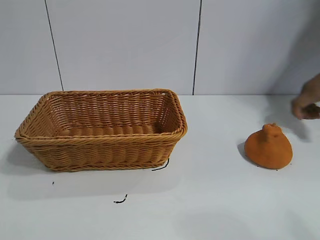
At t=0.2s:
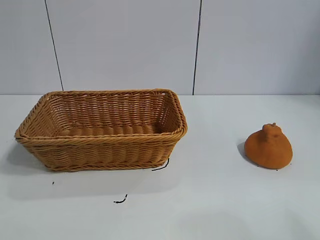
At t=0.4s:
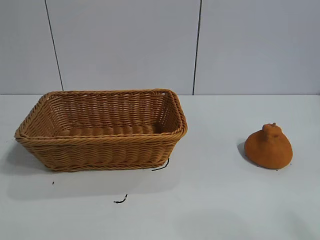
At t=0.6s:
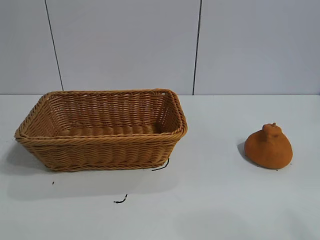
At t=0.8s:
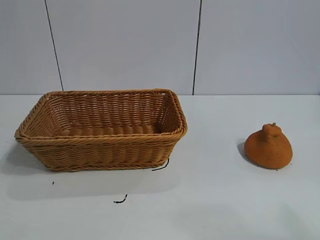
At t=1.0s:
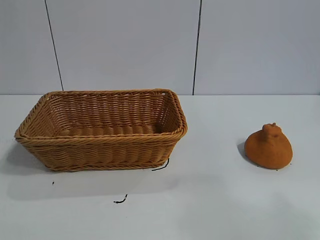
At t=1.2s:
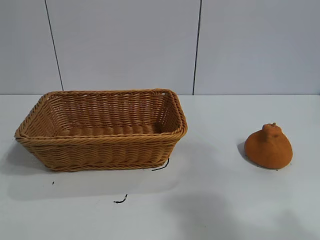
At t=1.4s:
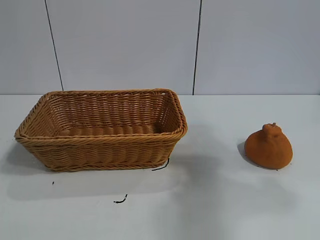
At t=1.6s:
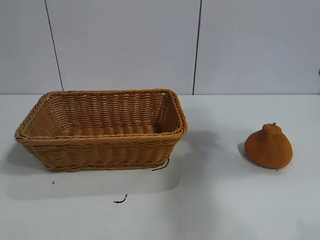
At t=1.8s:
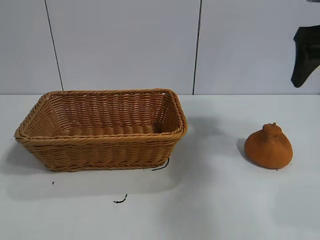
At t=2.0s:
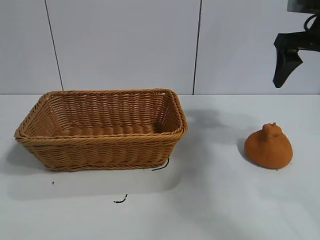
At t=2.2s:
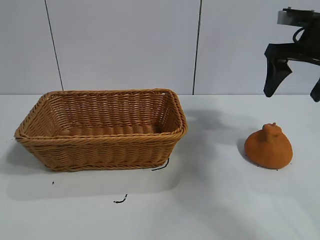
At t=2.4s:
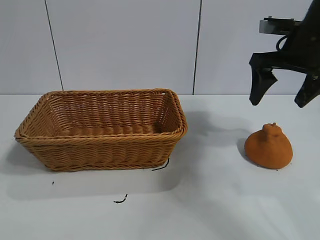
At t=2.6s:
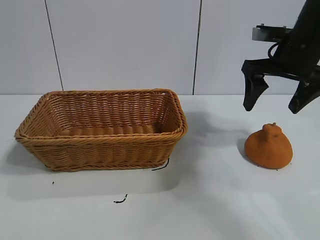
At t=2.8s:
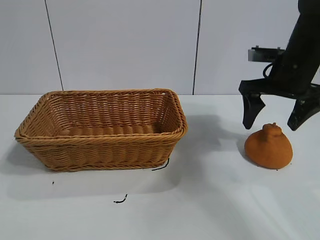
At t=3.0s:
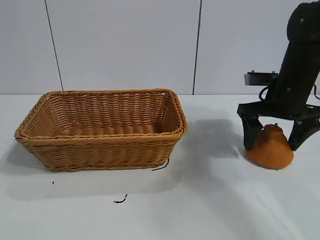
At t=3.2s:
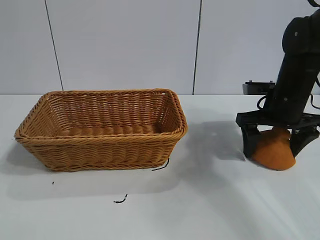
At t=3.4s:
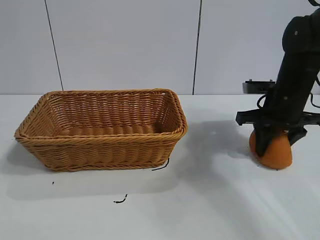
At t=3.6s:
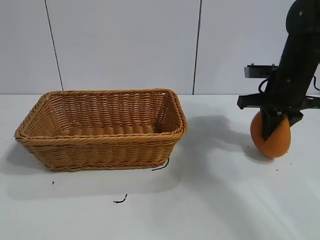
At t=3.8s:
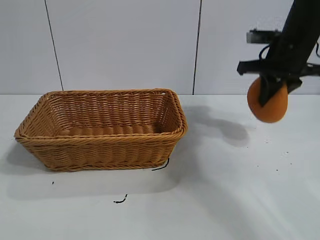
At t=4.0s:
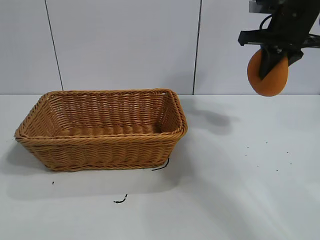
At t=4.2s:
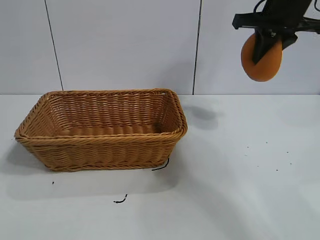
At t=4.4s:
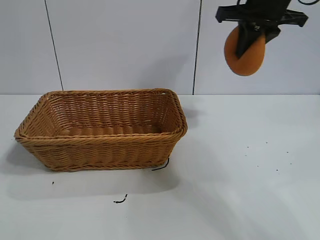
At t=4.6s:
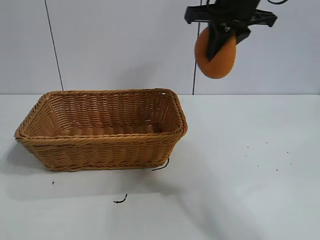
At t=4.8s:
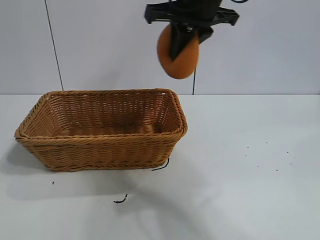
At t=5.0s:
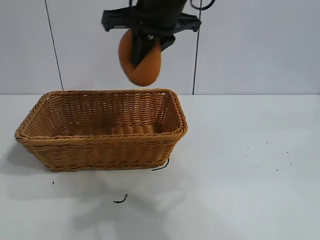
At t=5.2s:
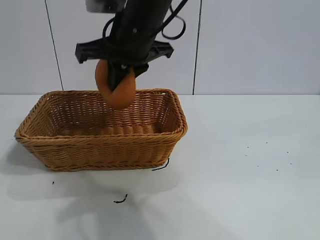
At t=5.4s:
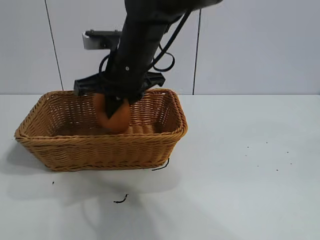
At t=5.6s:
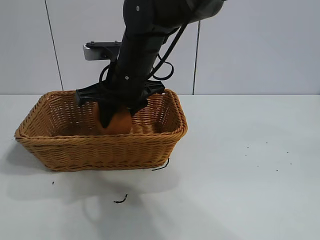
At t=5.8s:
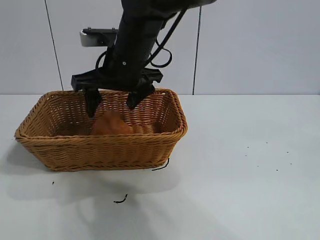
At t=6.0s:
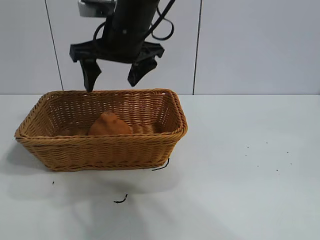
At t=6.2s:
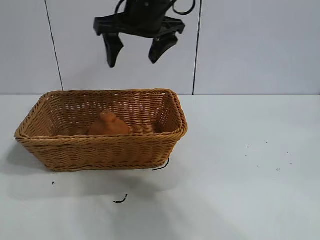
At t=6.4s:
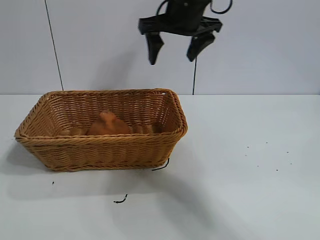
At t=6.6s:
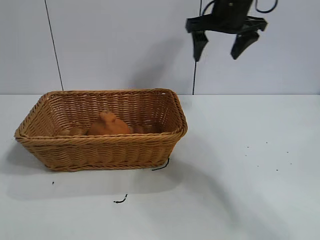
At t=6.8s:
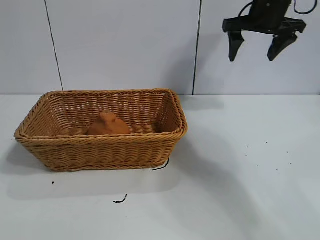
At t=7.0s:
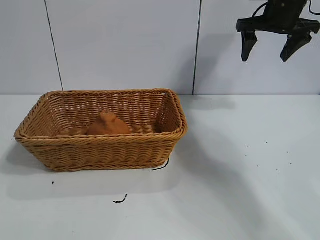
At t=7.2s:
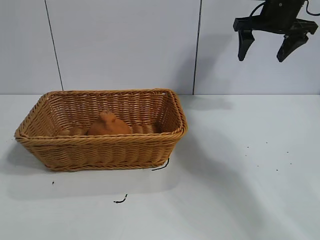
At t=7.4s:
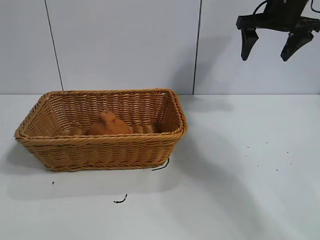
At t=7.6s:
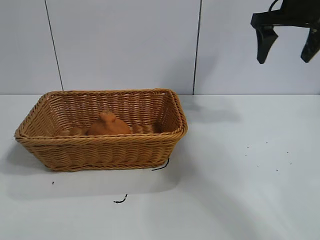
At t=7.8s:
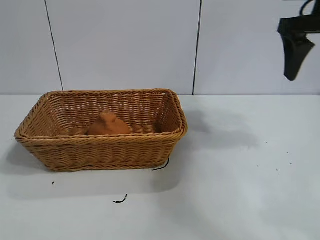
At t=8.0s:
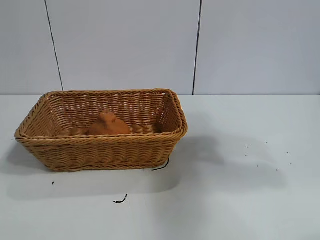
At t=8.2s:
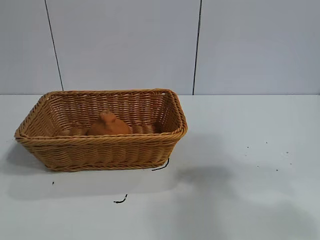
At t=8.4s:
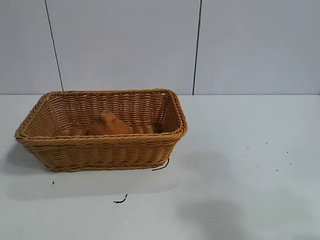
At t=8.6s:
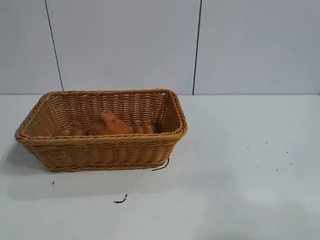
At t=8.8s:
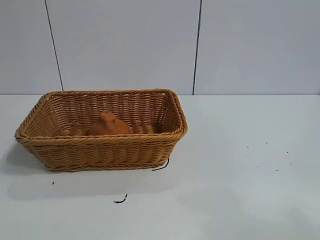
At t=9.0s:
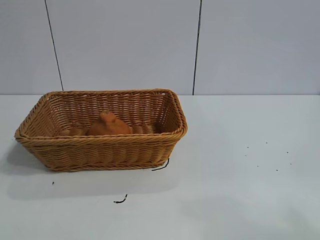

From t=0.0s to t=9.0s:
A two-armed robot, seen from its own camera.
Task of the whole recording: pick up the orange and put it into the basket.
Step, from t=1.0s to t=3.4s: Grasp the orange with right gripper.
Step, from t=3.6s to t=5.8s: Place the orange in the basket with right gripper.
